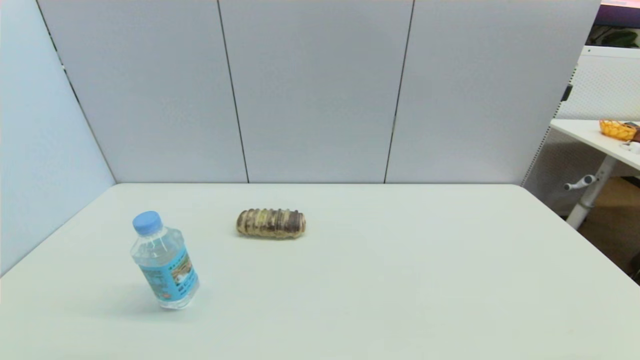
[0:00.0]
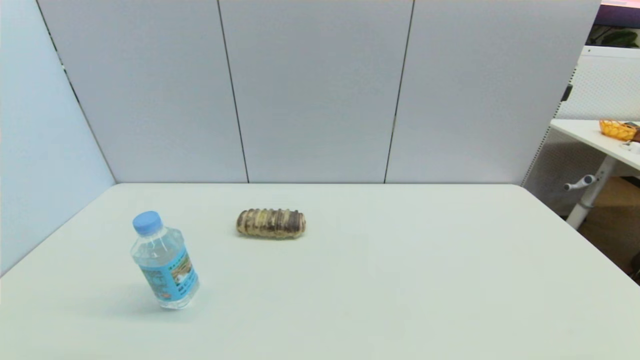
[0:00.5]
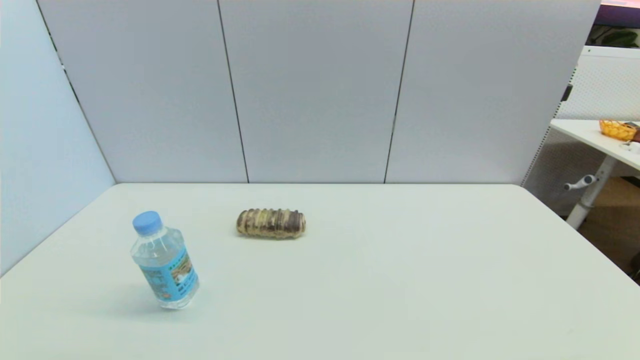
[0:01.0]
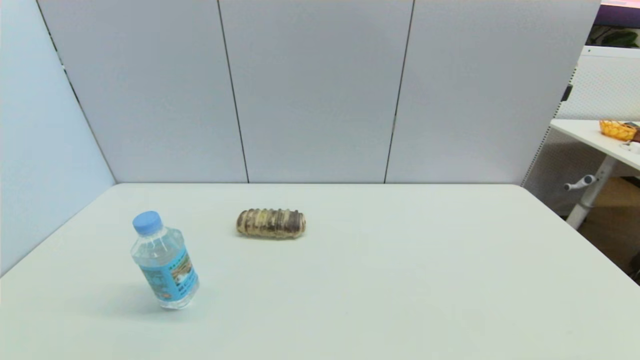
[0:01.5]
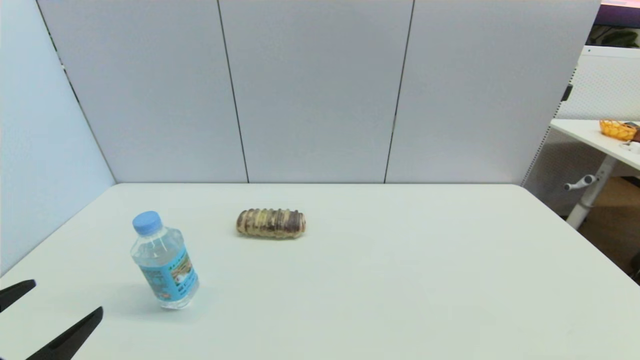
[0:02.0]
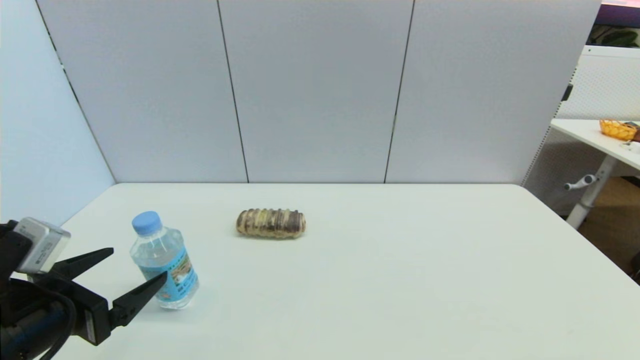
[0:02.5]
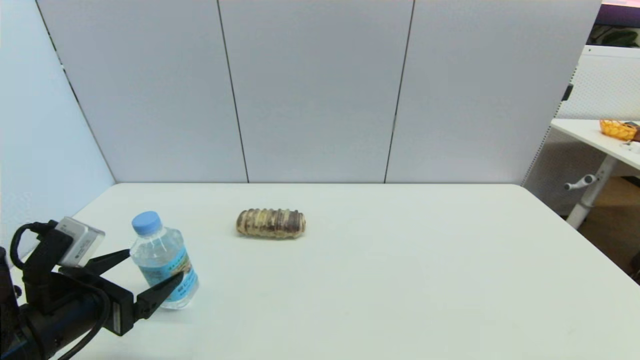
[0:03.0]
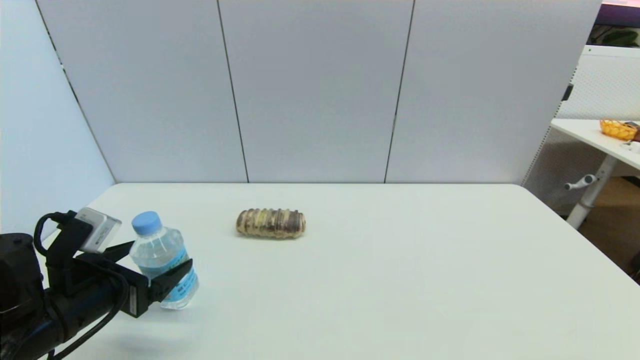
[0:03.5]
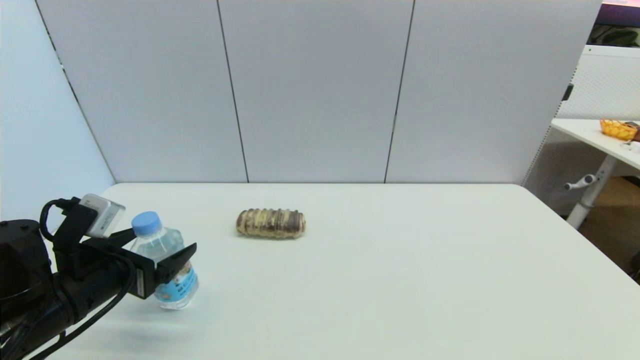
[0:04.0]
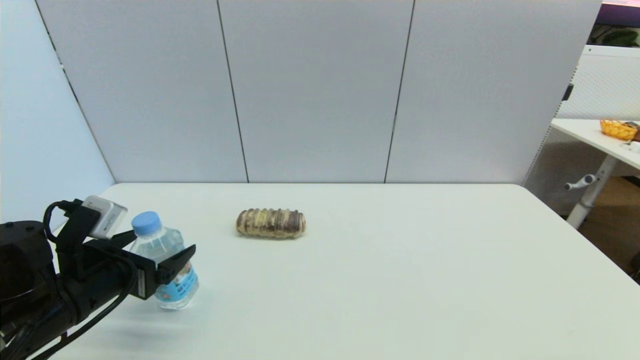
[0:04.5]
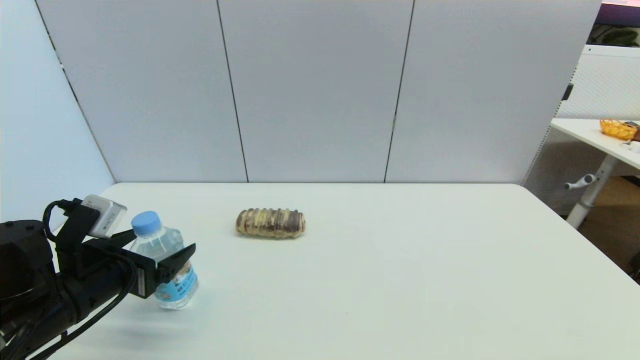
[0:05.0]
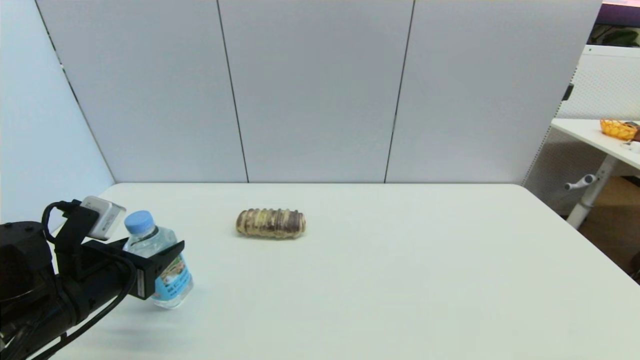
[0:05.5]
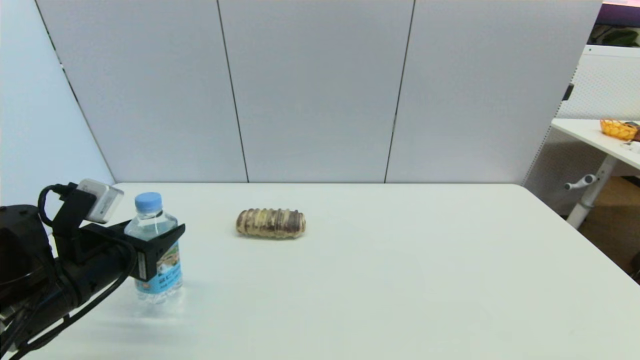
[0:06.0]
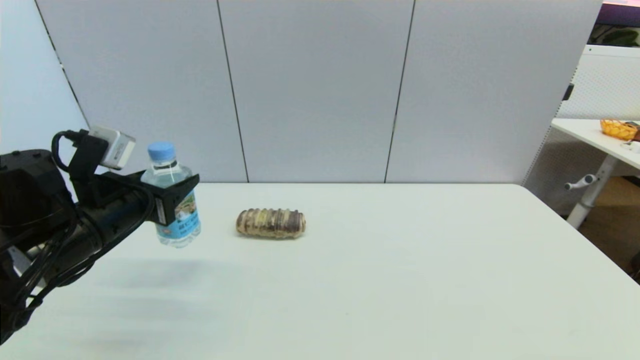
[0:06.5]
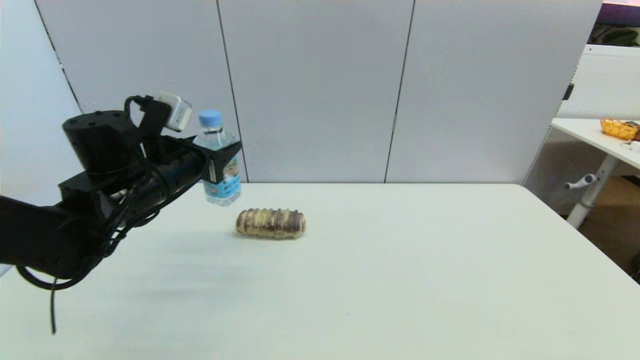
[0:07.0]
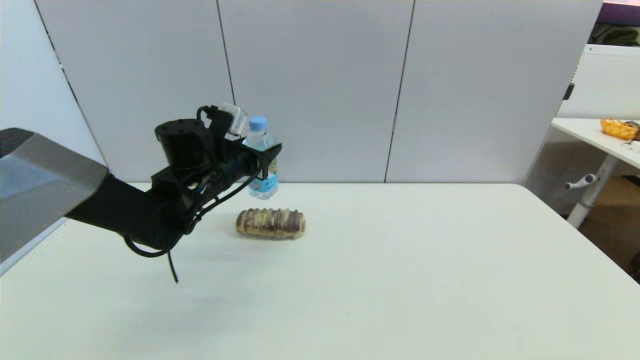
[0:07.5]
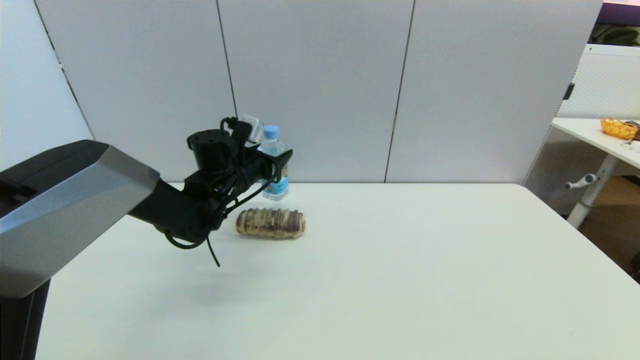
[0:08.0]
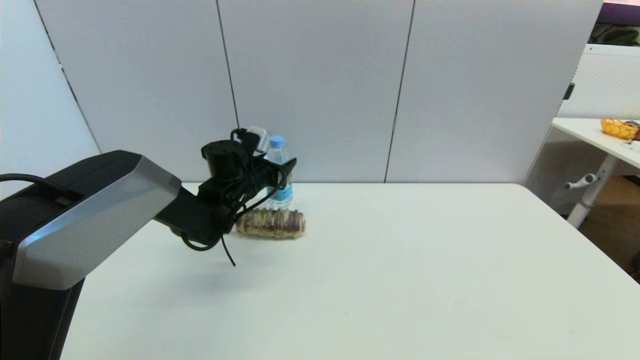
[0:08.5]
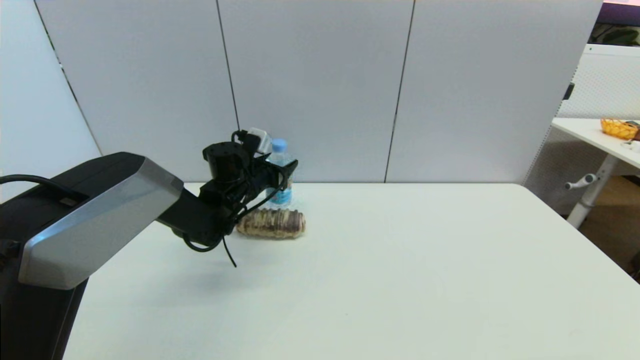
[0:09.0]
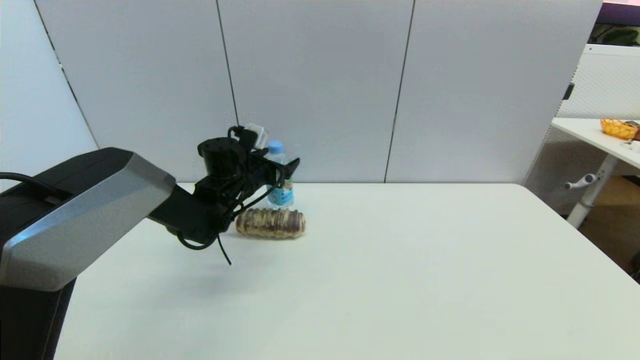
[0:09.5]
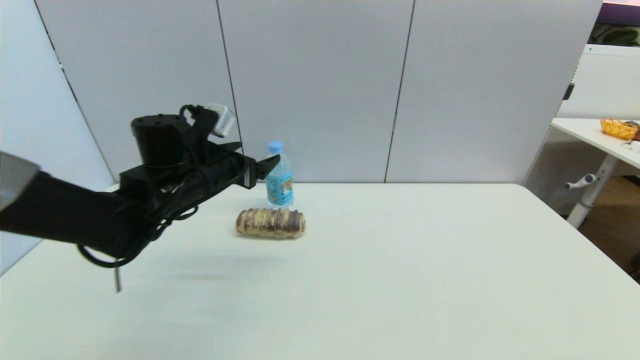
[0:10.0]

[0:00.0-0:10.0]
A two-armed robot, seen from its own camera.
Step, 0:02.0 to 0:05.0: Grasp the soda water with left gripper.
Step, 0:05.5 to 0:09.0: Place the soda water on the table with left gripper.
0:00.0 to 0:02.0: The left gripper heads upward and forward, covering about 10 cm.
0:02.0 to 0:04.0: The left gripper shifts approximately 15 cm forward.
0:04.0 to 0:06.0: The left gripper closes.
0:06.0 to 0:08.0: The left gripper heads forward and to the right, covering about 25 cm.
0:08.0 to 0:10.0: The left gripper shifts approximately 10 cm backward, and opens.

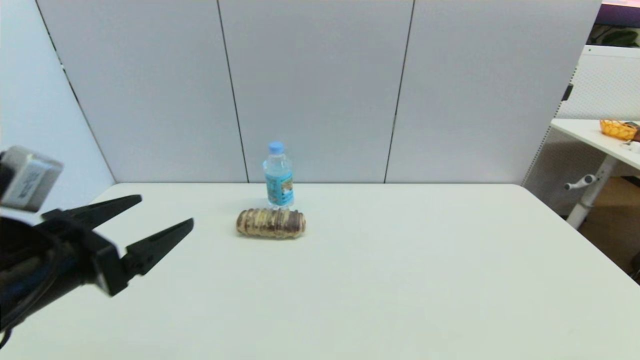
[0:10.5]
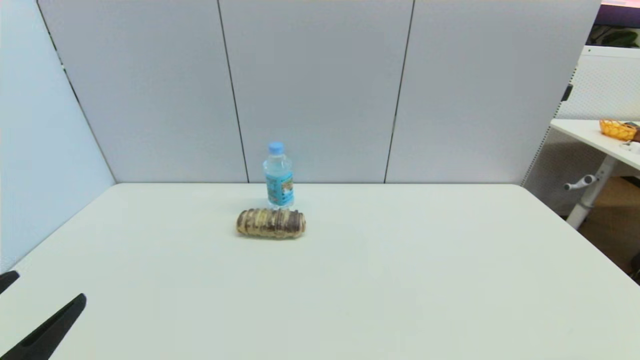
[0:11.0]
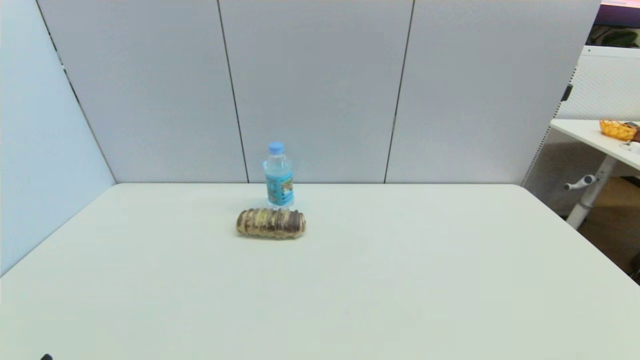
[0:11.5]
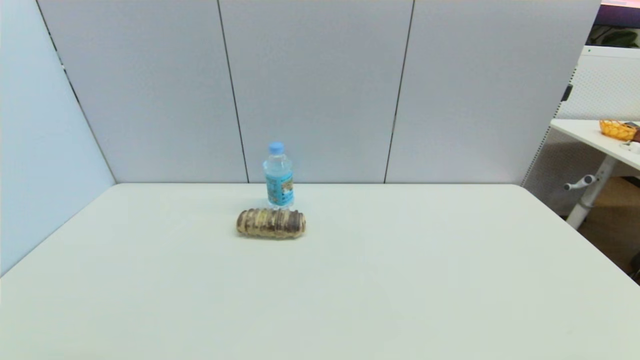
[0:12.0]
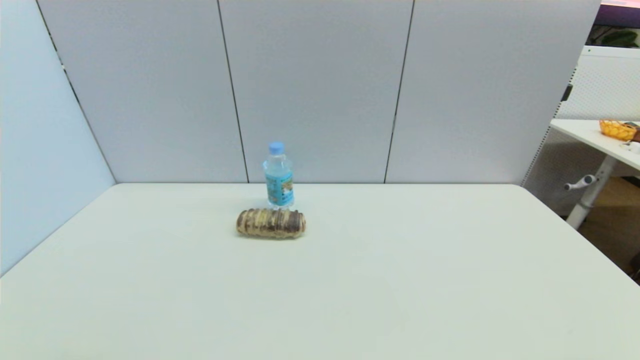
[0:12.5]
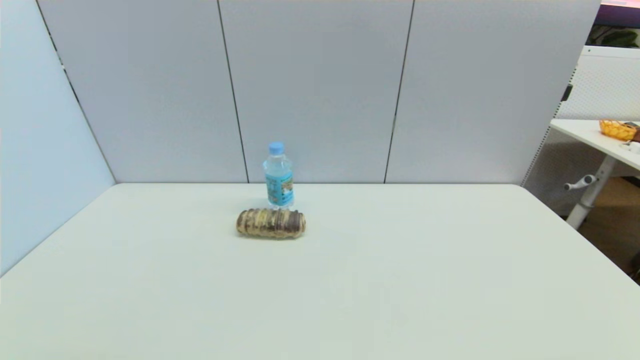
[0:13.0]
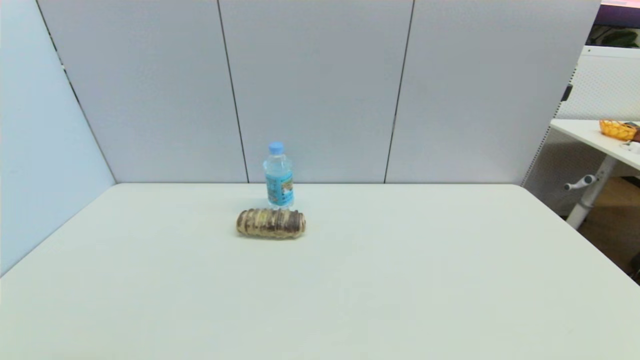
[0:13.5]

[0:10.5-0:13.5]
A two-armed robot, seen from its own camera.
0:10.5 to 0:12.0: The left gripper is displaced backward and downward by some 20 cm.
0:12.0 to 0:13.5: Both grippers stay put.
